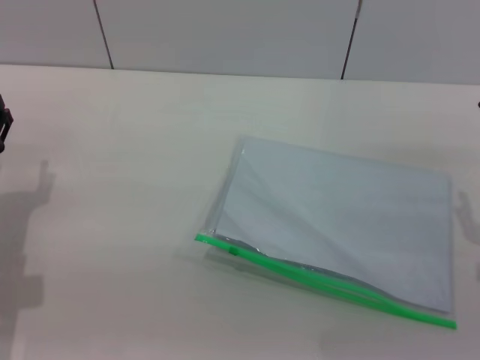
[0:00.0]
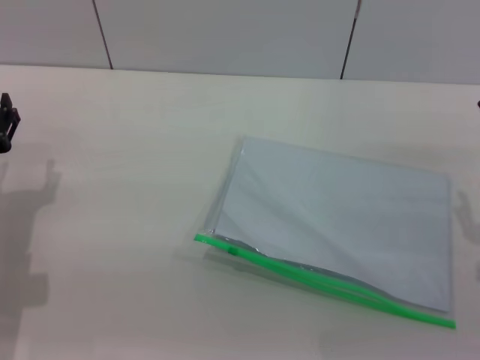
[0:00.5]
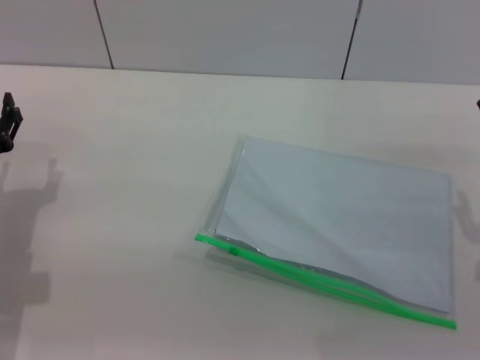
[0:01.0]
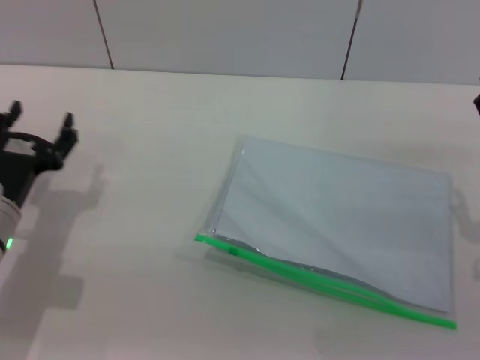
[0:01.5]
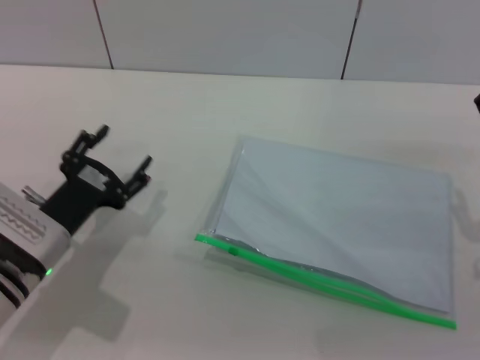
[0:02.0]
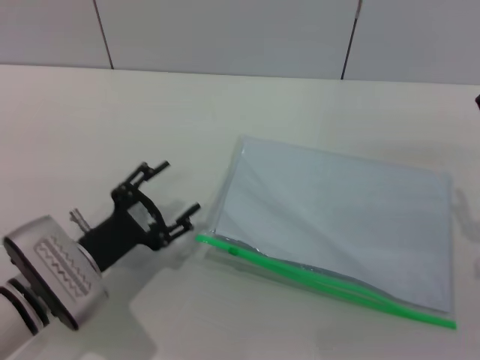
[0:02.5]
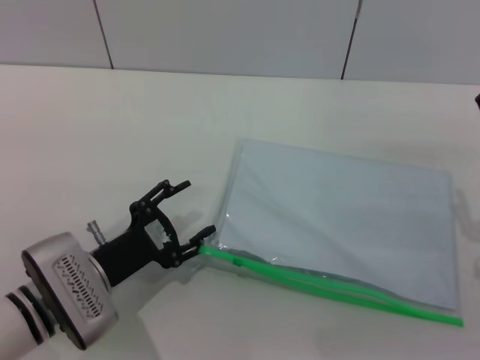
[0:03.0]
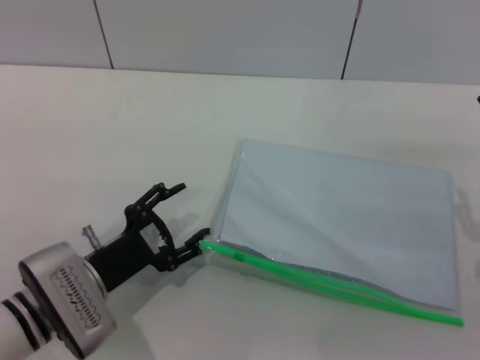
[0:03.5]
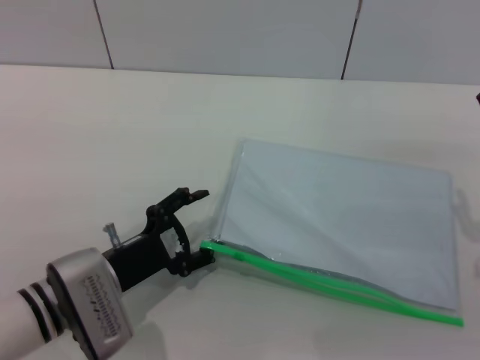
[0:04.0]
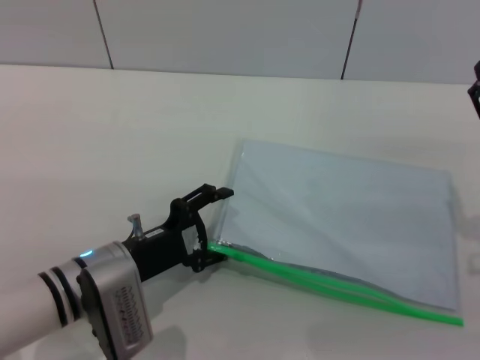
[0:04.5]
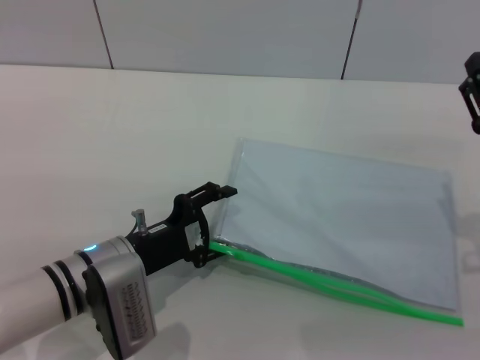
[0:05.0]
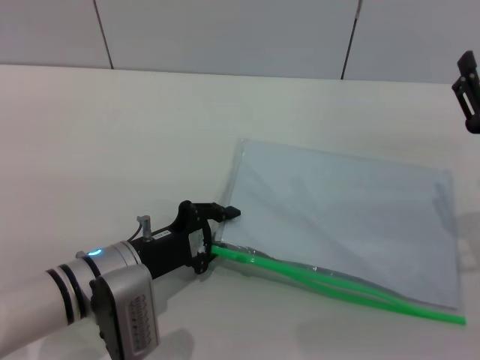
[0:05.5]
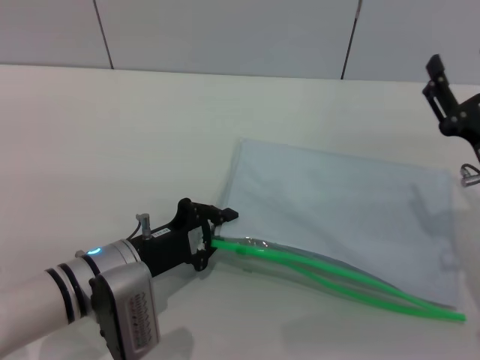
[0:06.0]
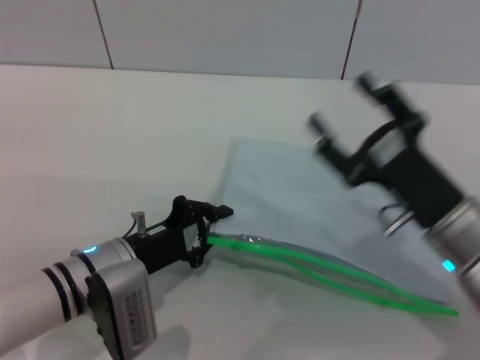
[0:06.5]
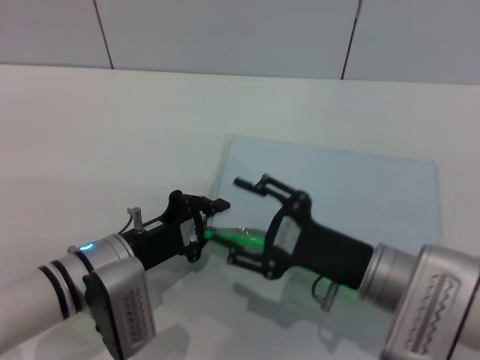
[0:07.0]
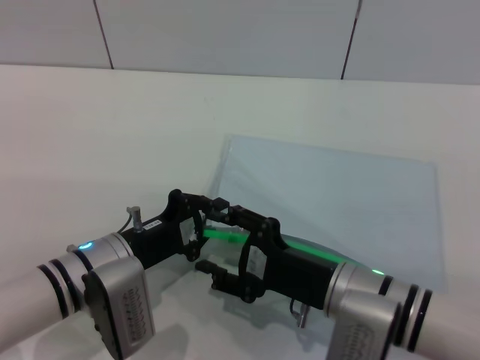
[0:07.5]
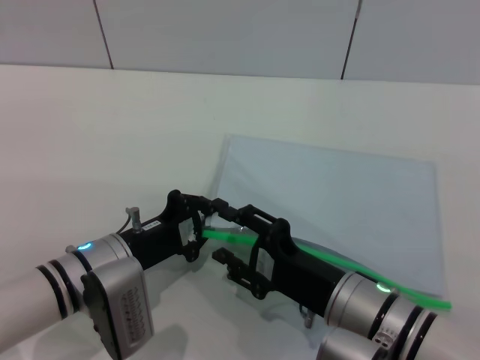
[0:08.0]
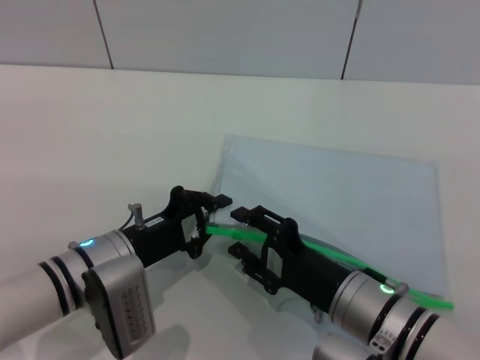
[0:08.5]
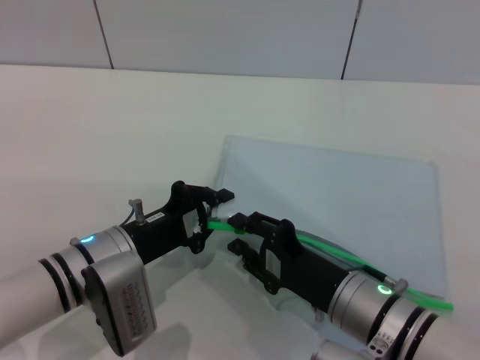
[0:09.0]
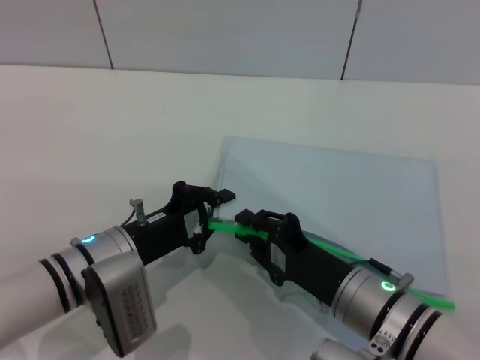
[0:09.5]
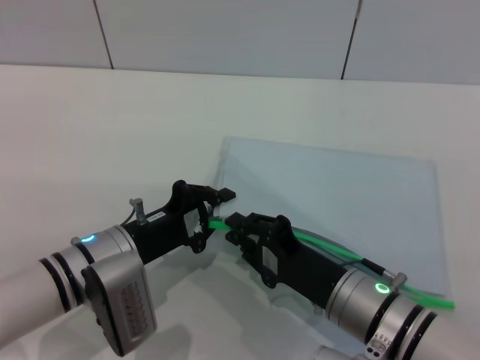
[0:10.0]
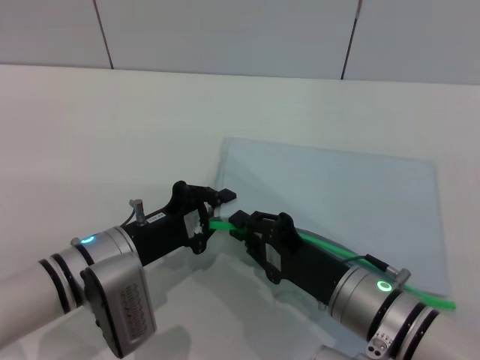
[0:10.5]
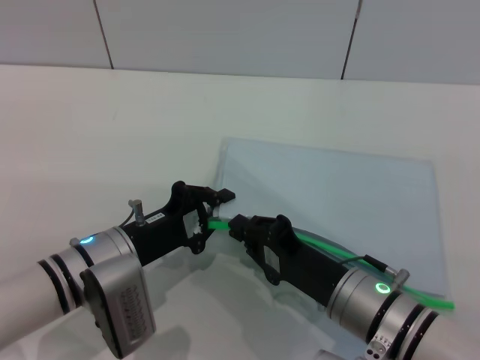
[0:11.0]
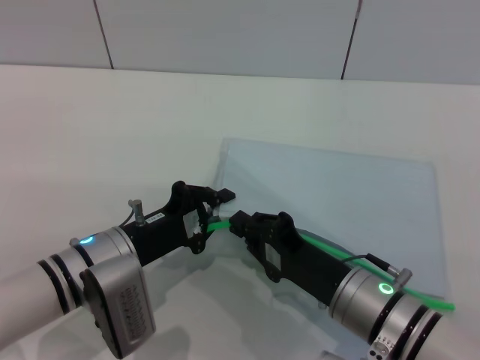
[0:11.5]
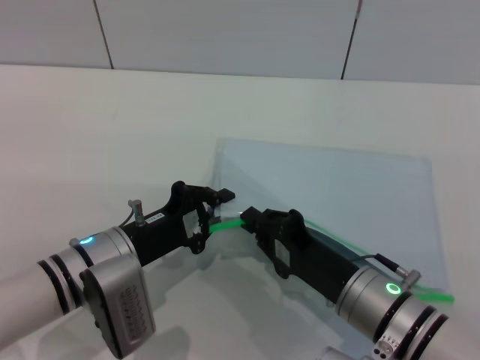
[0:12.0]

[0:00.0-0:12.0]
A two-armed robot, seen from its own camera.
Step, 0:00.0 to 0:06.0: Pick up the transparent plastic bag with the left gripper.
0:00.0 to 0:02.0: The left gripper heads to the right, covering some 5 cm.
0:04.0 to 0:06.0: The left gripper closes.
0:06.0 to 0:08.0: The right gripper travels to the left and backward by roughly 15 cm.
0:08.0 to 0:10.0: The right gripper closes its fingers.
0:10.0 to 0:12.0: The grippers move only a little.

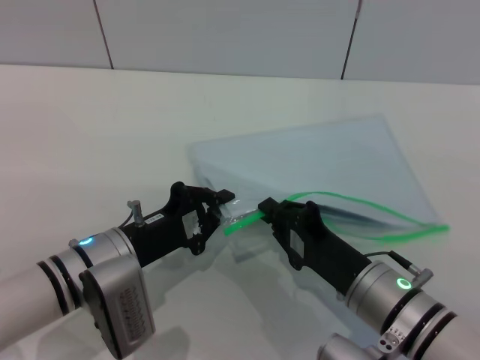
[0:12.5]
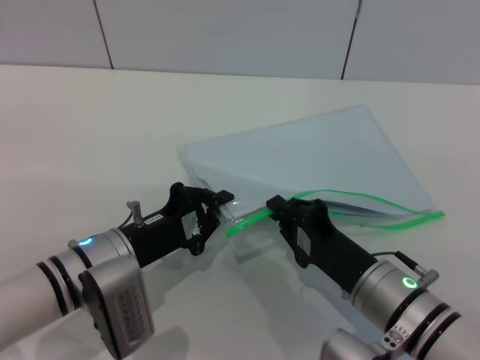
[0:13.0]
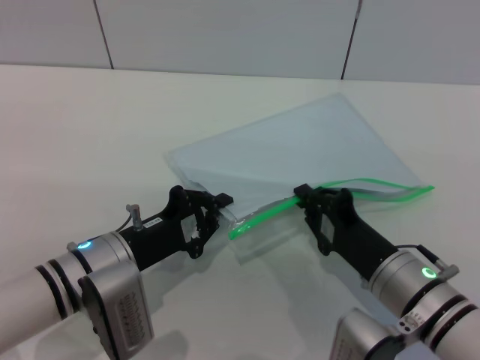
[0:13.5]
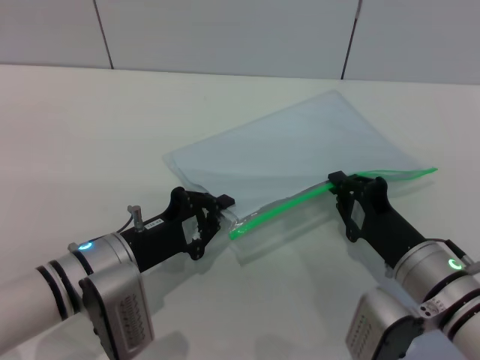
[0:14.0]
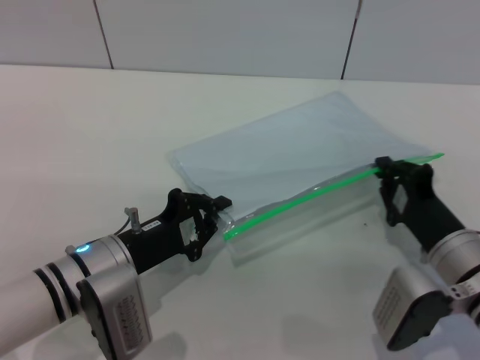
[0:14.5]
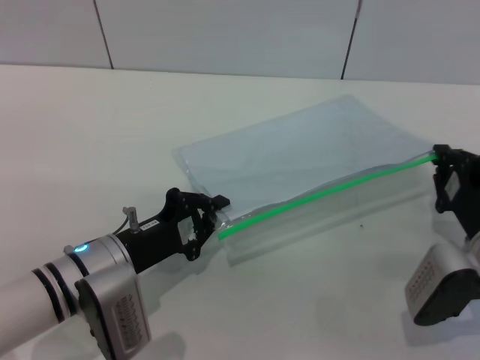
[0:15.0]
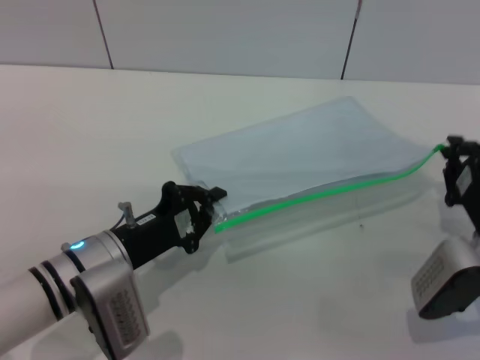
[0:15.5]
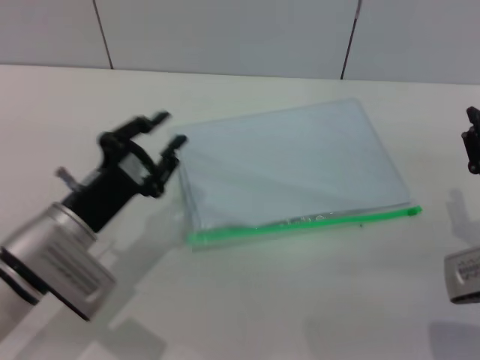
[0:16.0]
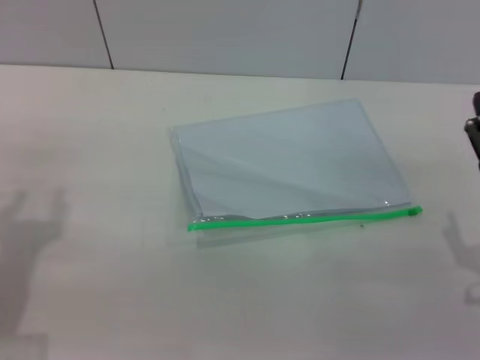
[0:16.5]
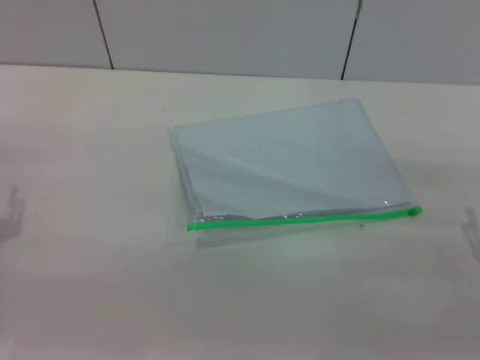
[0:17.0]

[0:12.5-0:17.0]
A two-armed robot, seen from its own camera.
Step, 0:12.5 to 0:15.5: Pulling up the zipper on the transparent plastic bag with the right gripper to close it.
Step, 0:16.0 to 0:16.5: Place the transparent plastic bag.
0:12.5 to 0:14.5: The right gripper travels to the right by some 5 cm.
0:14.5 to 0:17.0: The right gripper goes roughly 5 cm to the right, and opens, while the left gripper heads to the left, covering about 15 cm, and opens its fingers.
